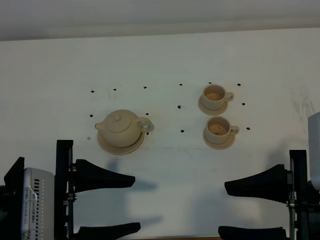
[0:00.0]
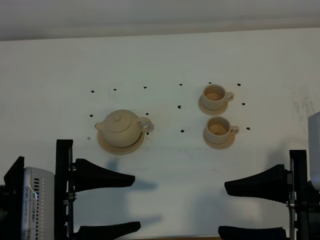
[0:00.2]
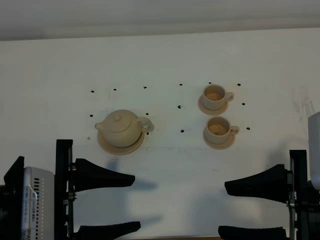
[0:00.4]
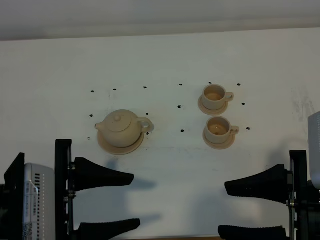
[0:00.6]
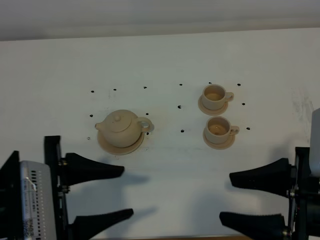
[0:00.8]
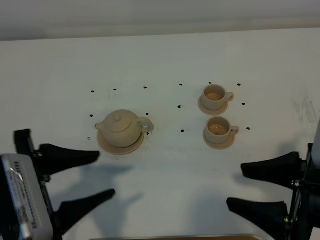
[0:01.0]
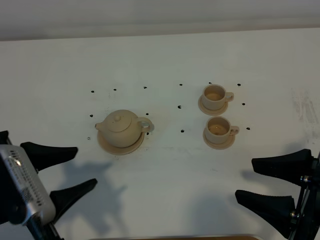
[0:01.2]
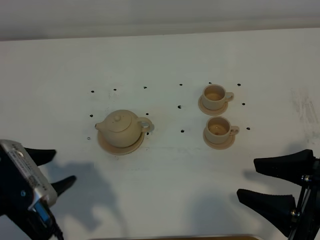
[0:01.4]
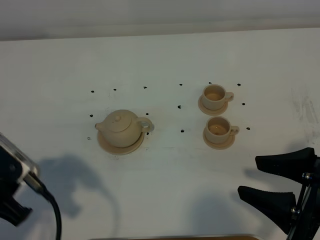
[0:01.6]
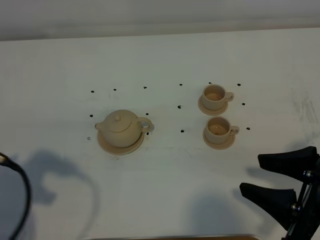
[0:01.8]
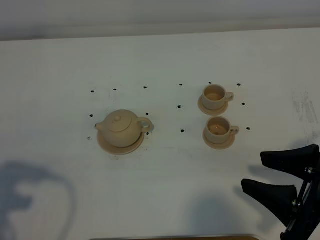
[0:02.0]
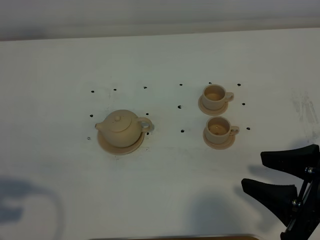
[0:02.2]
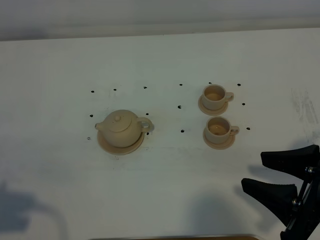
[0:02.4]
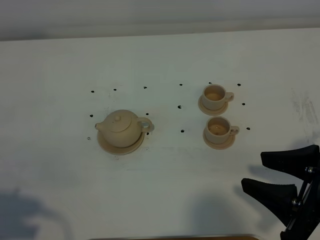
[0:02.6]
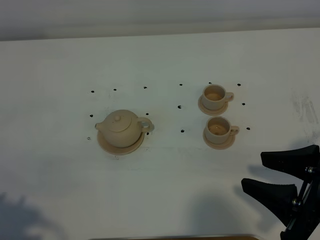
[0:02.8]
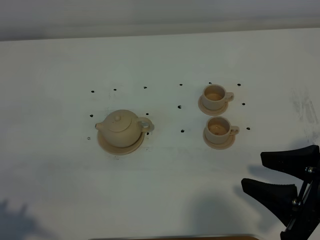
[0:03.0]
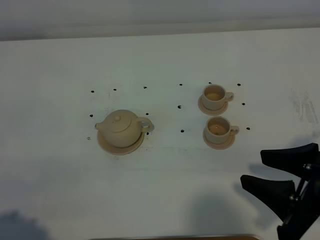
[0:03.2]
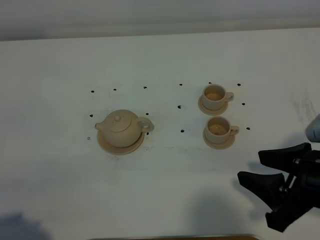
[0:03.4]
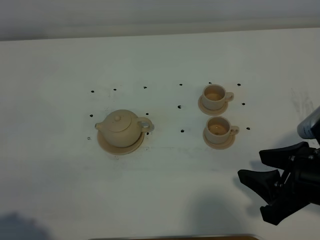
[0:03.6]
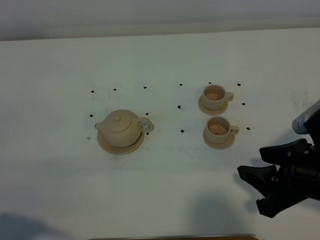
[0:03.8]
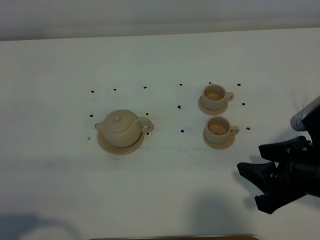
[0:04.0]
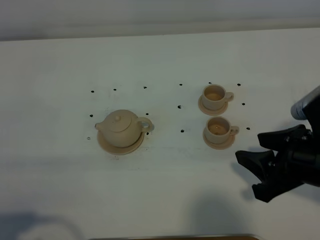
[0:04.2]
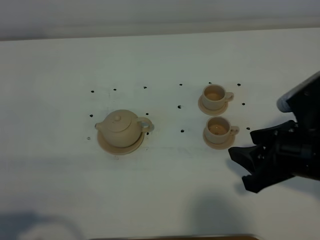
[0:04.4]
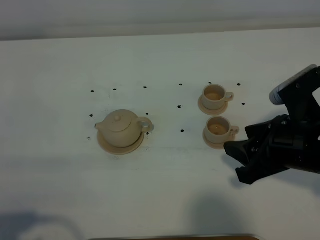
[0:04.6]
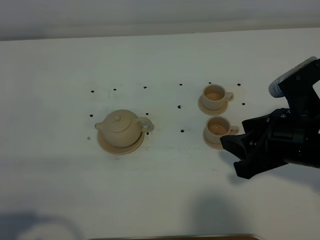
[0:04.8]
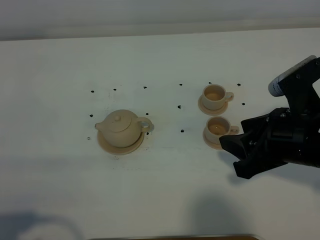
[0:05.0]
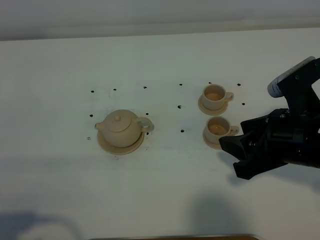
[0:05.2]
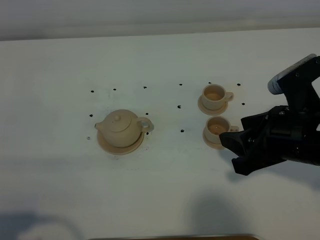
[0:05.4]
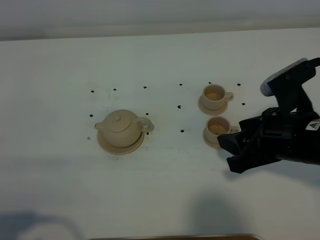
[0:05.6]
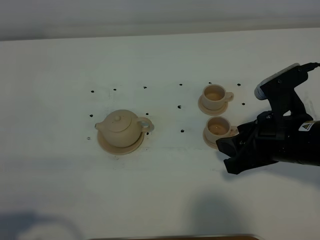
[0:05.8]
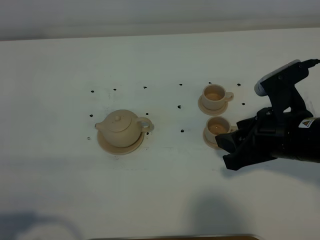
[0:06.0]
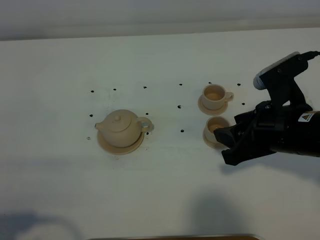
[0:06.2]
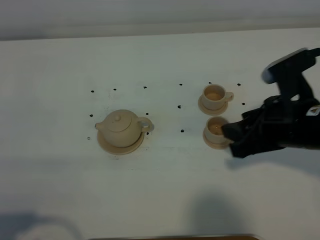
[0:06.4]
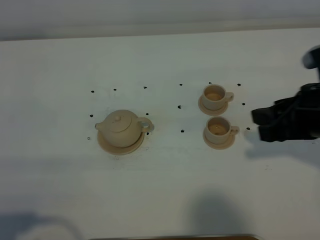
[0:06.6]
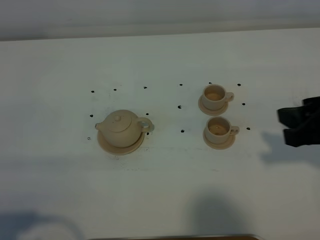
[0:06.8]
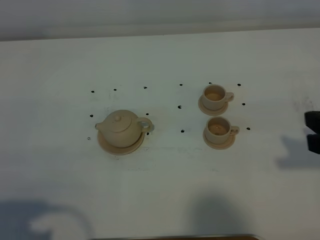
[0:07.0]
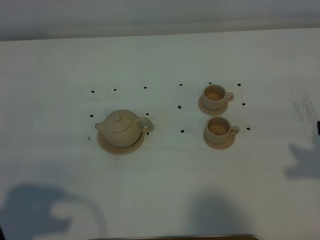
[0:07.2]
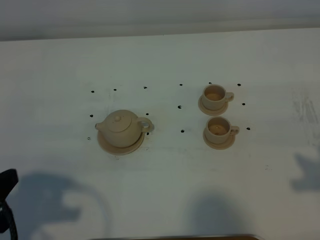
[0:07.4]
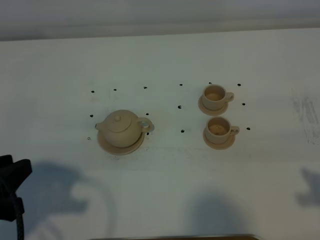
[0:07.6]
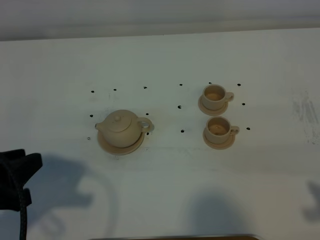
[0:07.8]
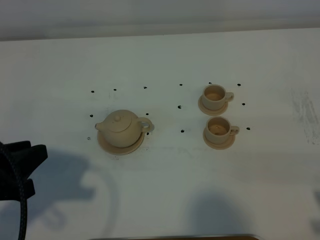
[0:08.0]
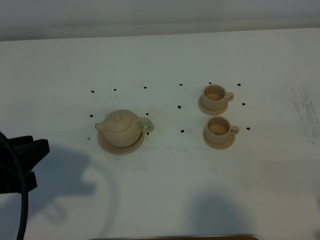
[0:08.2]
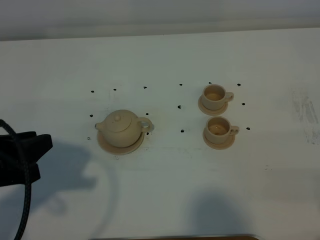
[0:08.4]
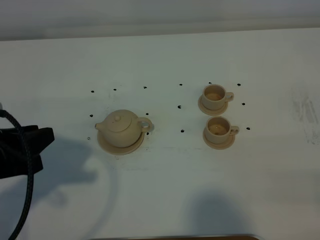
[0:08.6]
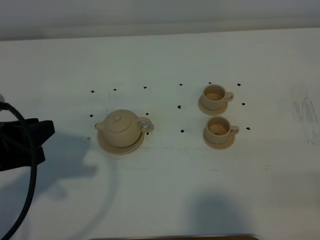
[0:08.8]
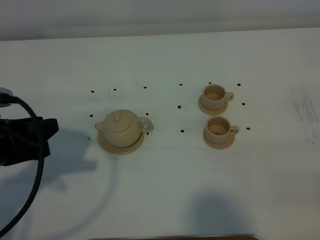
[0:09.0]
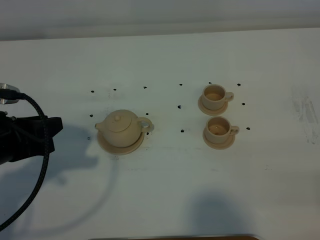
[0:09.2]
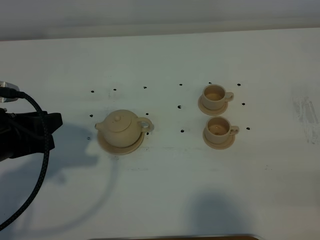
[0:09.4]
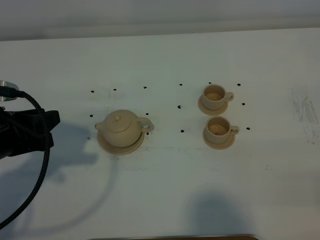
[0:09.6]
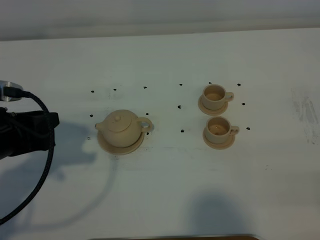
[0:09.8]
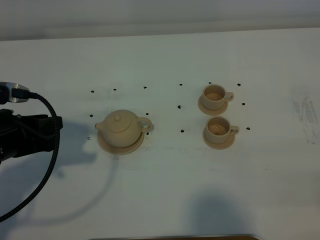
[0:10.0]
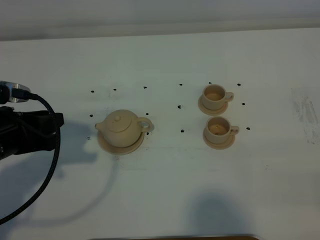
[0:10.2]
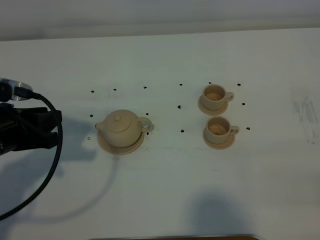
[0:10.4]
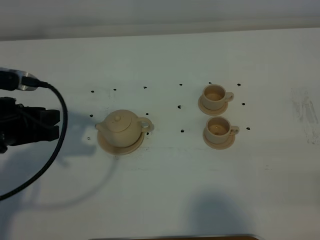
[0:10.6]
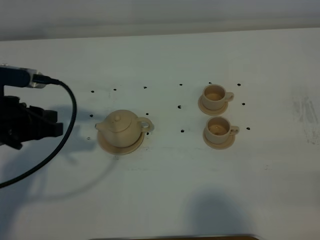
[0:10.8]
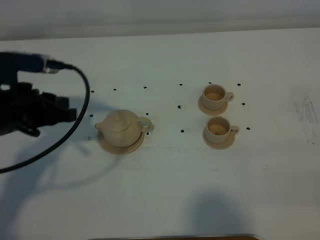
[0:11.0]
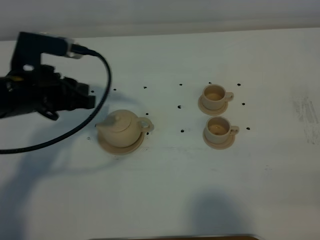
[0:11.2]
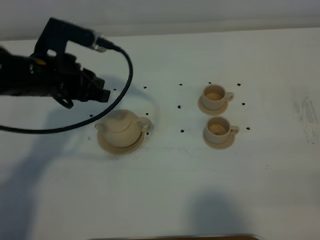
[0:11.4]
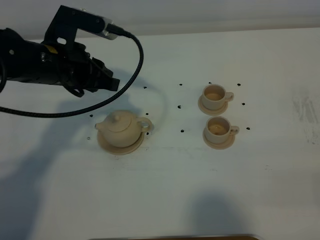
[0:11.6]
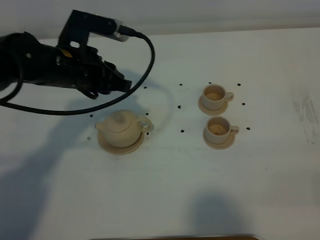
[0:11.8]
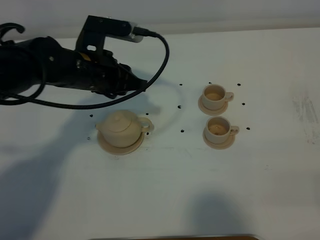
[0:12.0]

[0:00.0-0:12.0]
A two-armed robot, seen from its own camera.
Task of the whole recording: grasp the brown teapot and pour the tea into the two brown teacups one by one, put the brown teapot back in its original place.
0:00.0 to 0:01.6: The left gripper moves to the left, some 10 cm.
0:01.6 to 0:03.0: The left gripper goes roughly 15 cm backward and to the left.
0:03.0 to 0:04.4: The right gripper is displaced forward by some 5 cm.
0:04.4 to 0:06.0: There are only small adjustments of the grippers.
0:06.0 to 0:07.6: The right gripper goes about 15 cm backward, to the right and upward; the left gripper shifts roughly 10 cm forward.
0:07.6 to 0:09.0: The left gripper heads forward, covering approximately 10 cm.
0:09.0 to 0:10.4: The grippers make only small movements.
0:10.4 to 0:12.0: The left gripper moves to the right and forward, approximately 20 cm.

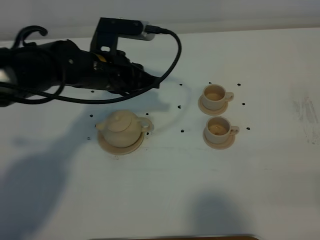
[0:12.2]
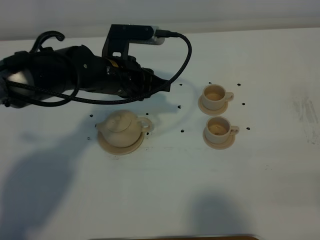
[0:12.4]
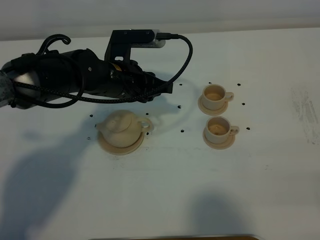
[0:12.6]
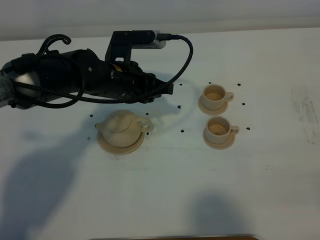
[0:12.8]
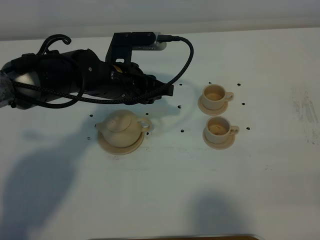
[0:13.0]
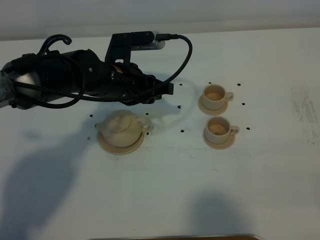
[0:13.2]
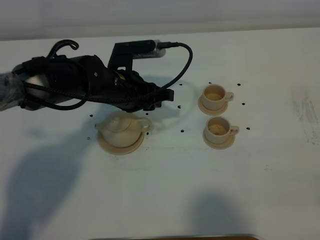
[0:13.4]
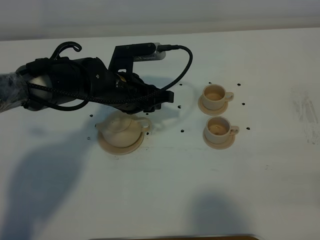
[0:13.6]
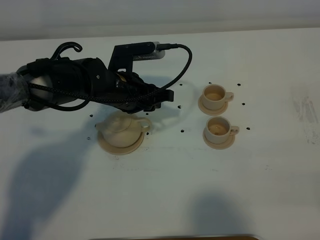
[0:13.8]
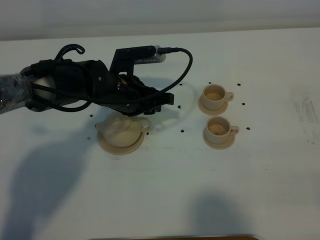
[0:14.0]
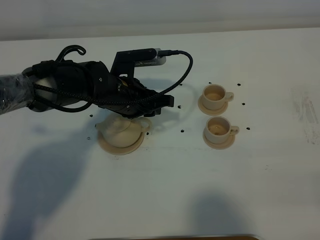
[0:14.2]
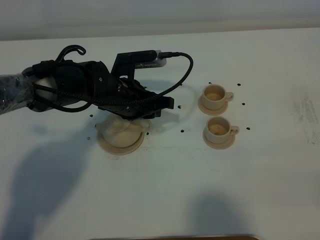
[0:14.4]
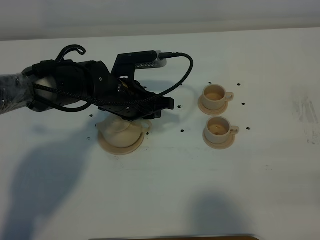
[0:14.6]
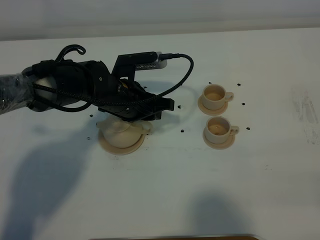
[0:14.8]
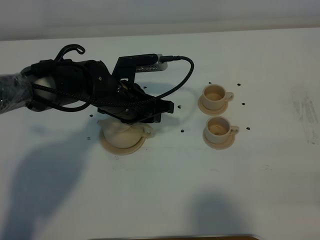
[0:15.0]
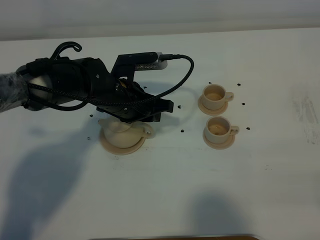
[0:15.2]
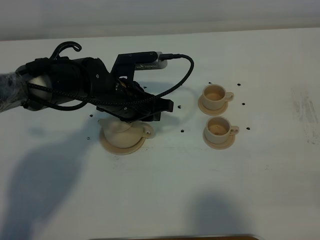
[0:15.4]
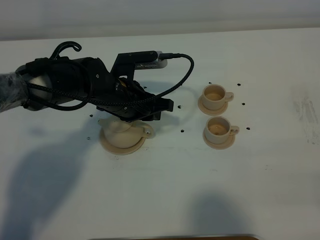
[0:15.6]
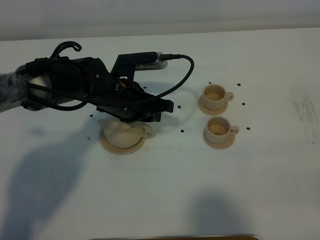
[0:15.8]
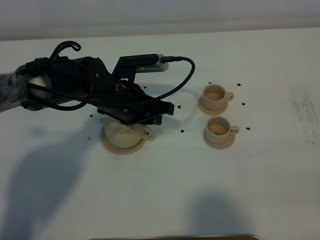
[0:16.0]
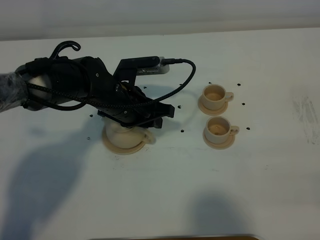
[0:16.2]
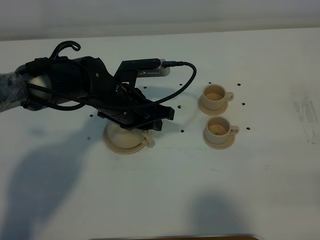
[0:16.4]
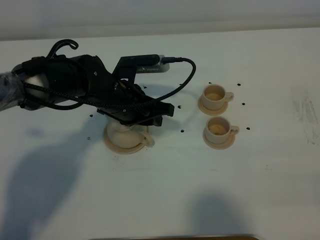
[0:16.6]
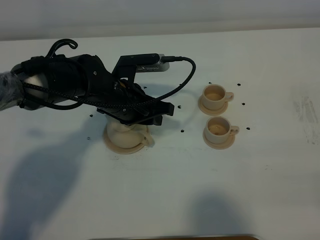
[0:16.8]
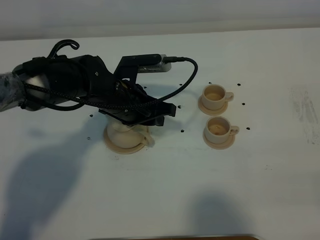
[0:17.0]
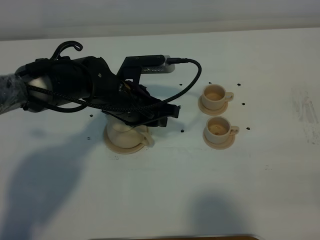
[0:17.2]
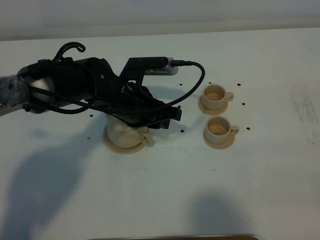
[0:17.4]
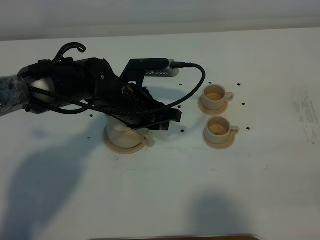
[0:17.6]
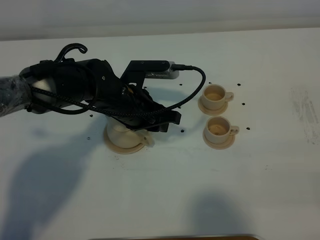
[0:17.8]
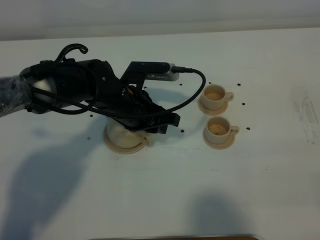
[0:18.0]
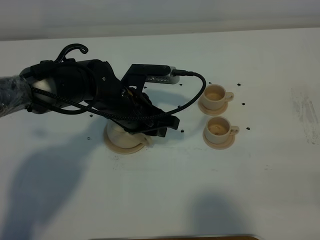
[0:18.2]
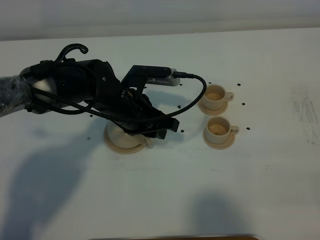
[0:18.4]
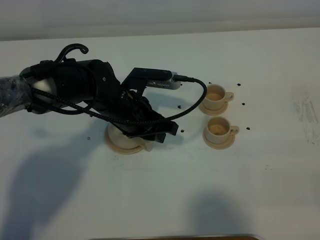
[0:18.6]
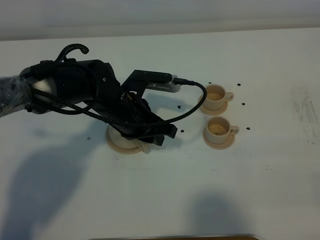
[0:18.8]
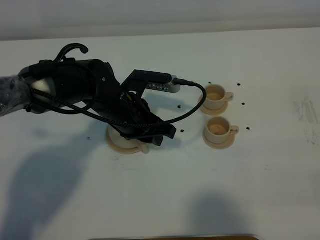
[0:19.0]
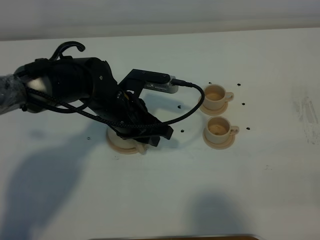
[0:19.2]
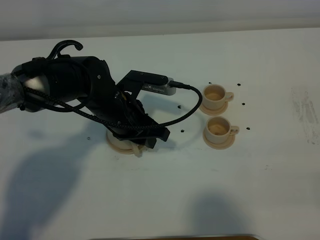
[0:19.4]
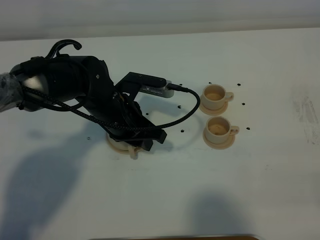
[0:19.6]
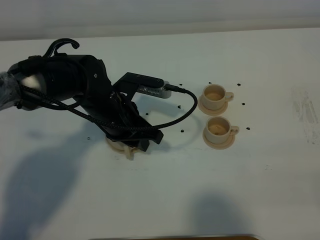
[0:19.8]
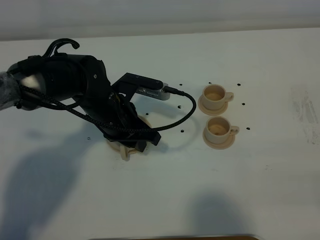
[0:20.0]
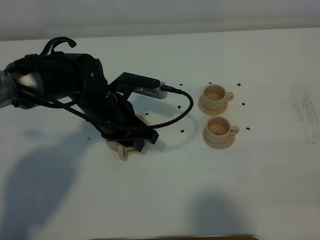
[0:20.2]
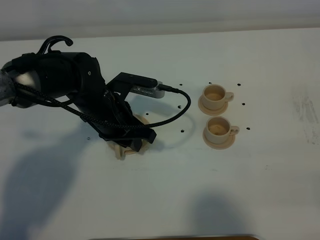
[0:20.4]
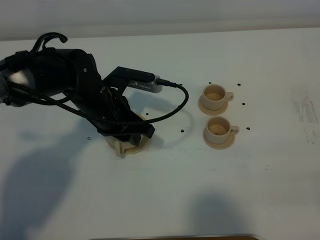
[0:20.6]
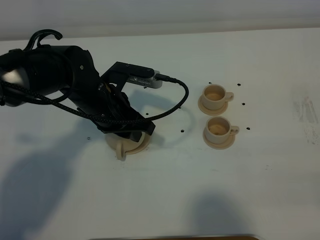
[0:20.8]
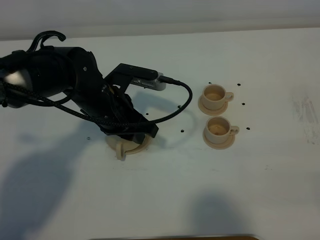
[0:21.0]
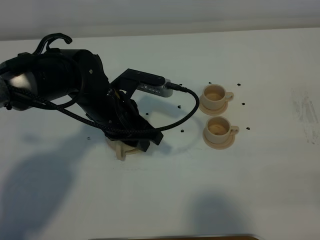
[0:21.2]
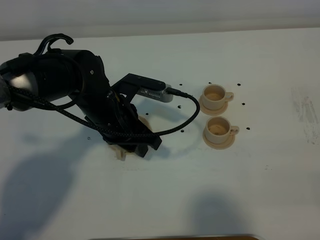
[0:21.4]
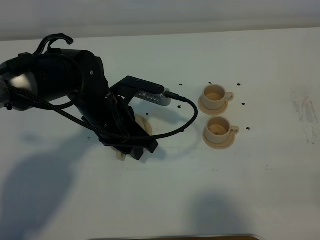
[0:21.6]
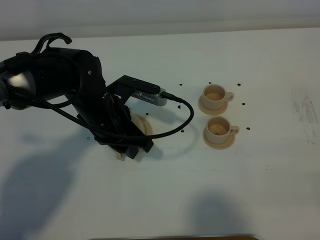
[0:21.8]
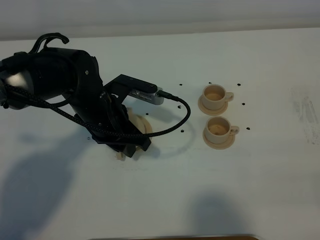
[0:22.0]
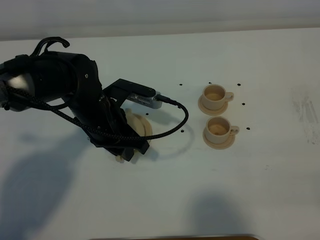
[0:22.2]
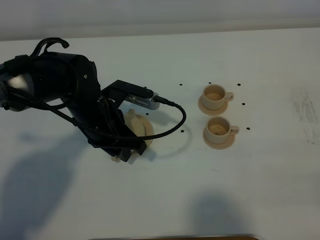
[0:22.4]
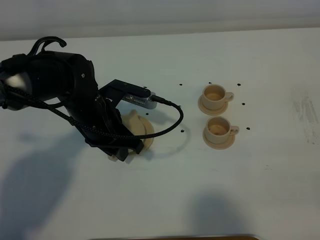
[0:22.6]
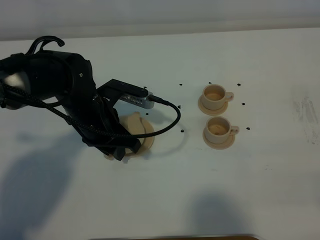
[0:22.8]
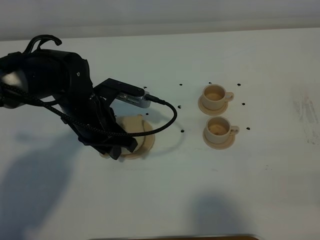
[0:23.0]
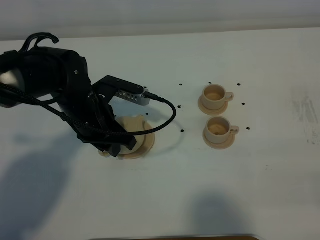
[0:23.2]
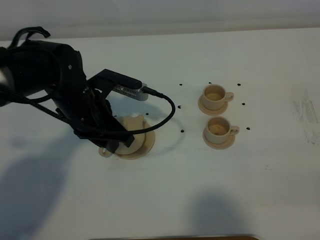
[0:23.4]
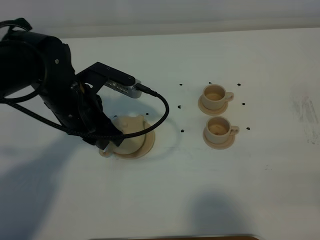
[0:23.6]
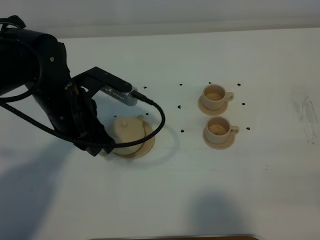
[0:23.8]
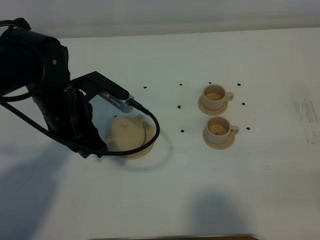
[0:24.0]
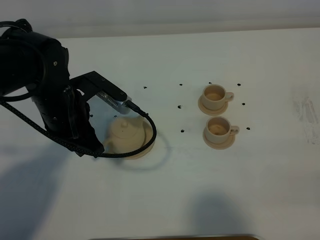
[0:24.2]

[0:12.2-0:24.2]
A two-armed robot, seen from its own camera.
Task of the whole recording: grasp the brown teapot and pour the tea into the two brown teacups one by one, put the brown teapot back in its original place.
0:12.2 to 0:13.8: The left gripper ends up roughly 5 cm from where it was.
0:13.8 to 0:18.2: The grippers move only a little.
0:18.2 to 0:21.2: The grippers move only a little.
0:21.2 to 0:22.6: The grippers make only small movements.
0:22.6 to 0:24.2: The left gripper ends up roughly 5 cm from where it was.
